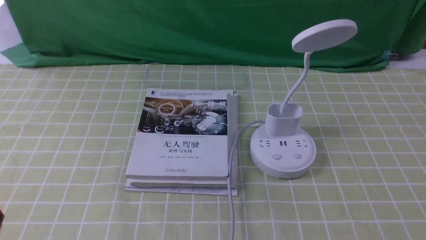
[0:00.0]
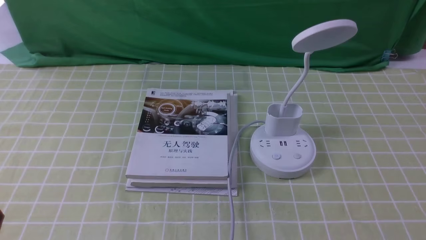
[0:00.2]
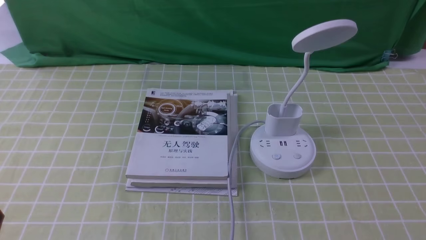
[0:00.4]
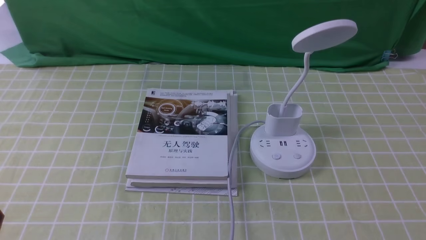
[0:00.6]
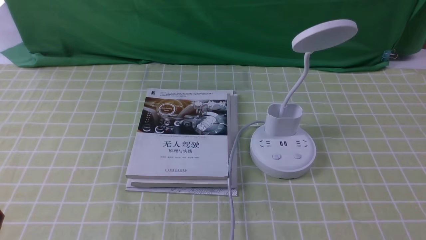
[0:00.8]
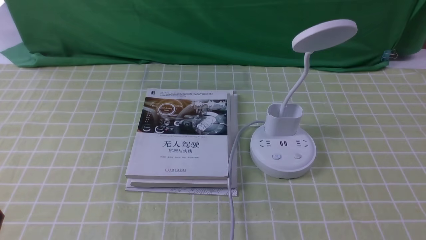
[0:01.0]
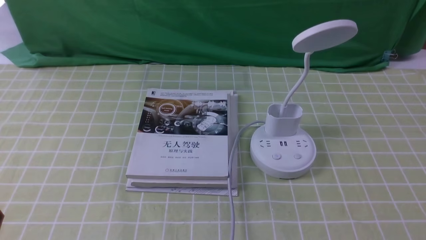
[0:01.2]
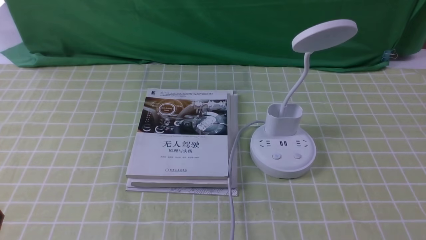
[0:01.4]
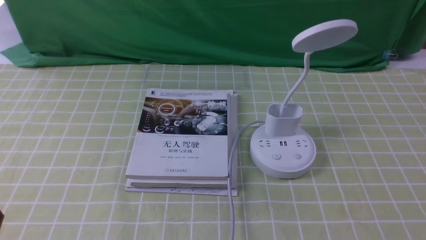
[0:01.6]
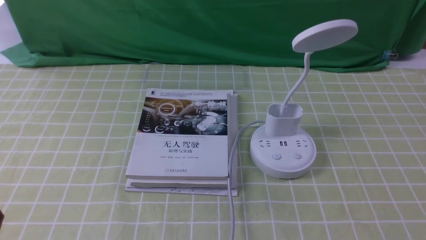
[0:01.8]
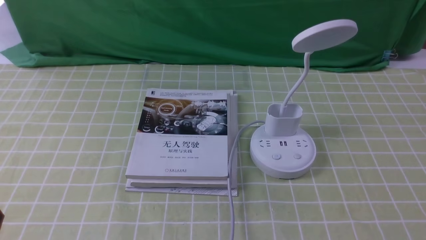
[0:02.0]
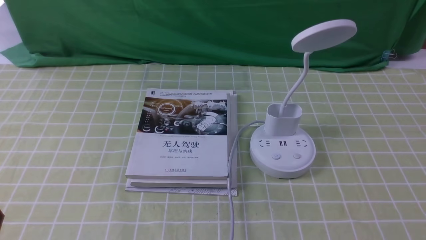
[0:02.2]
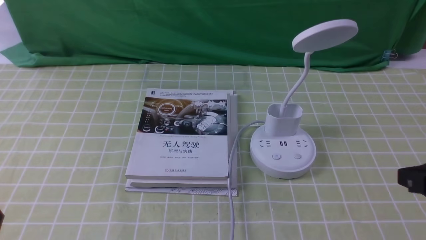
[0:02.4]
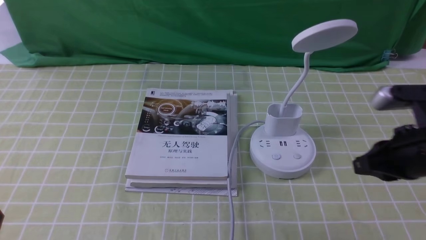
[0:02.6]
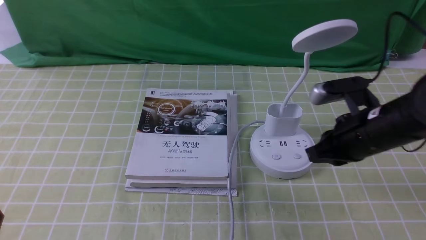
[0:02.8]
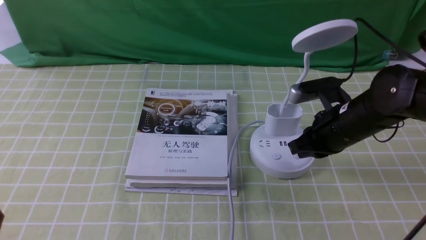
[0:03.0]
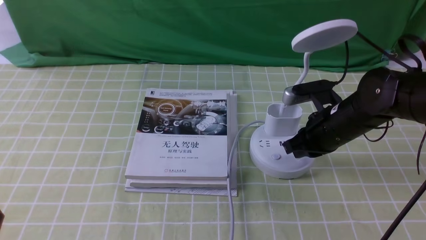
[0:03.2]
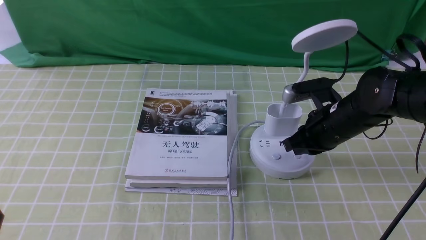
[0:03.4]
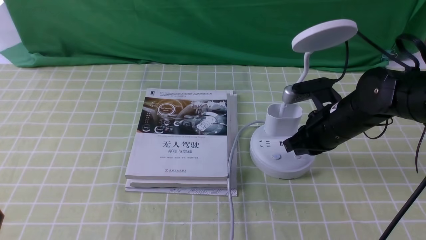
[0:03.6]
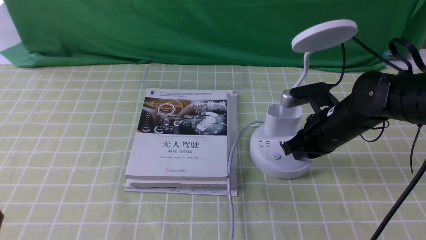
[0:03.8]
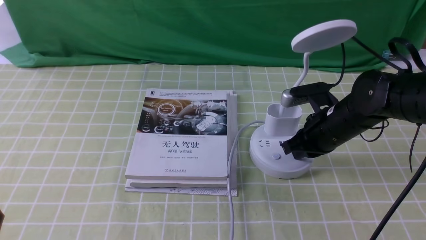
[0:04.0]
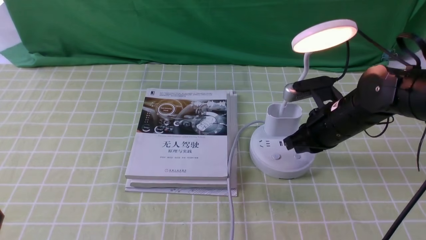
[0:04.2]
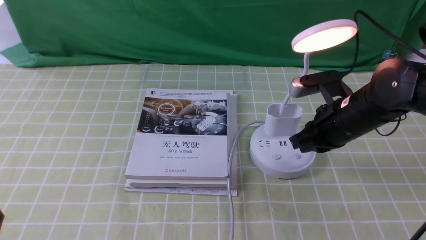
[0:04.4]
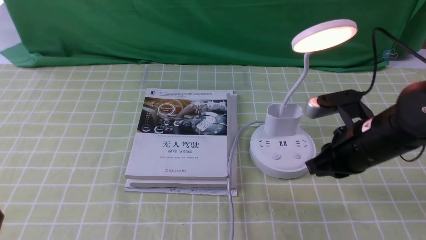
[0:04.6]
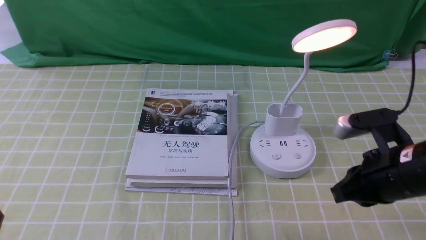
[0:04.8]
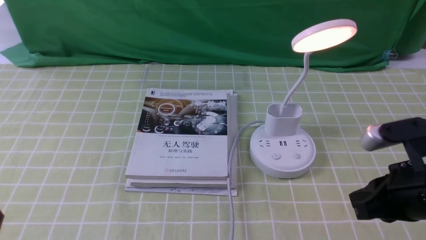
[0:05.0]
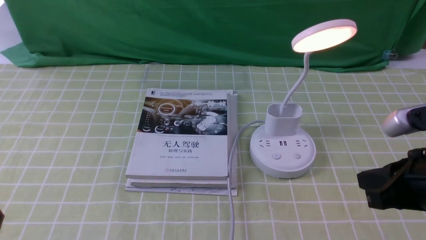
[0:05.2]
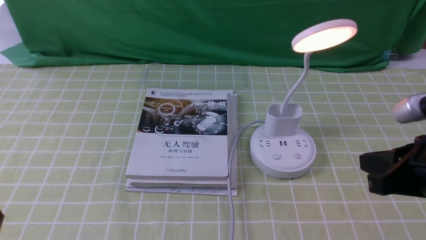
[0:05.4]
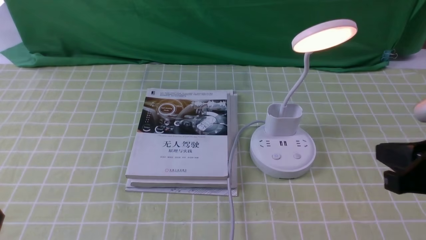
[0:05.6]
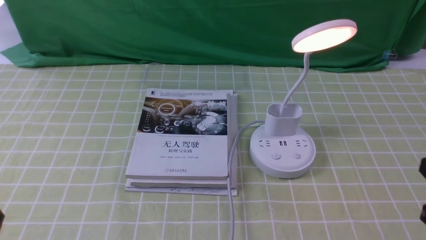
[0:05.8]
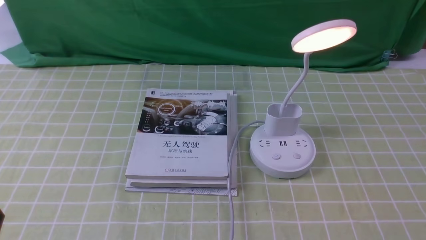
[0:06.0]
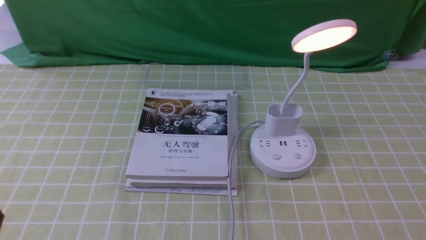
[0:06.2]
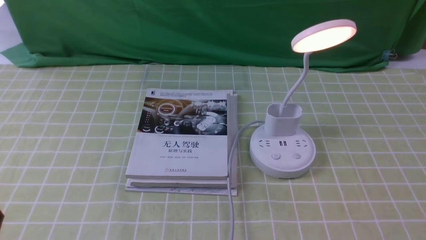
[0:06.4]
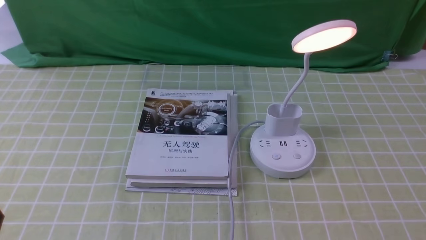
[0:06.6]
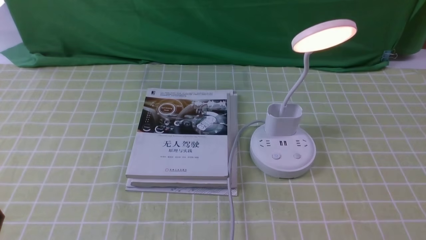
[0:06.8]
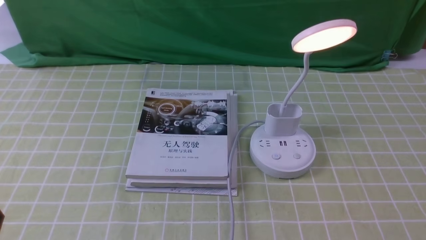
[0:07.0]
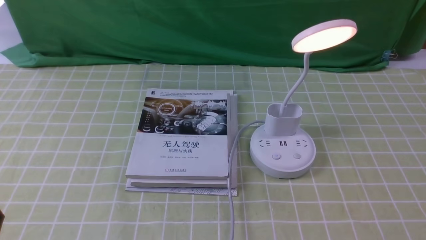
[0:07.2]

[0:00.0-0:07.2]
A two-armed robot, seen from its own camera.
Step, 0:00.0 to 0:04.4: use the right arm to press the button switch on the lamp holder.
0:01.4 to 0:02.8: The right gripper shifts roughly 25 cm forward and to the left, and closes up.
0:04.4 to 0:05.8: The right gripper heads backward and to the right, covering approximately 20 cm.

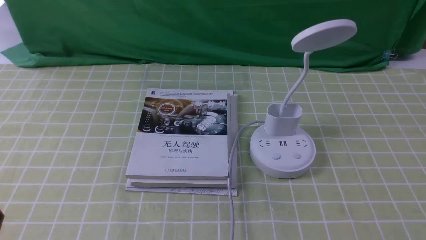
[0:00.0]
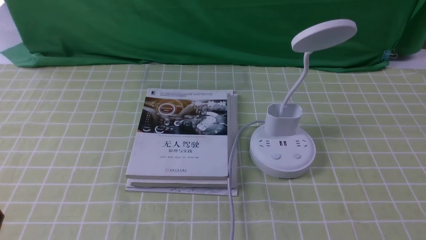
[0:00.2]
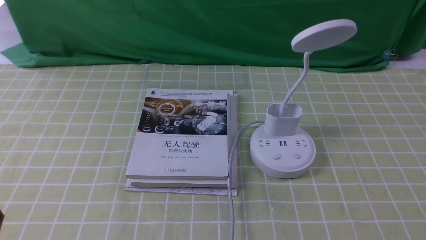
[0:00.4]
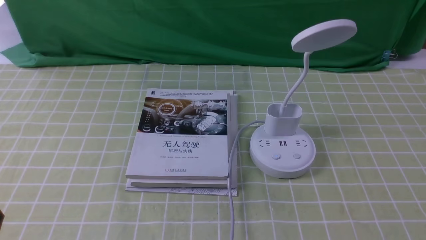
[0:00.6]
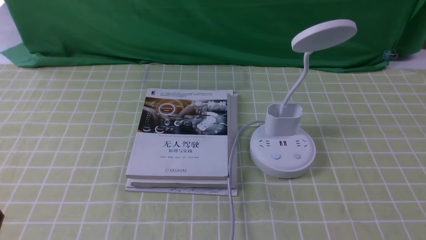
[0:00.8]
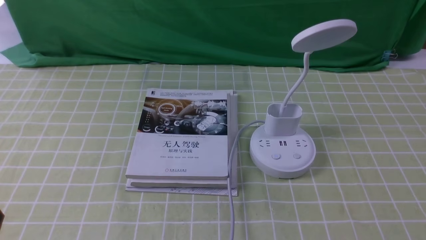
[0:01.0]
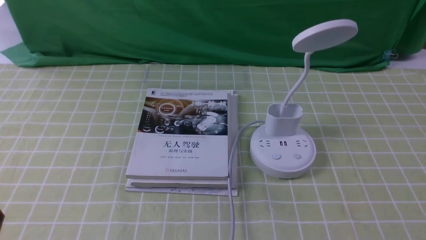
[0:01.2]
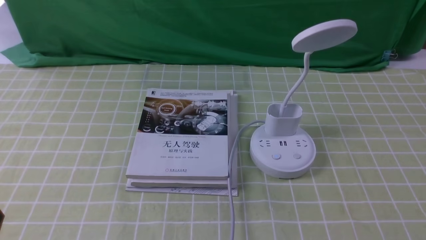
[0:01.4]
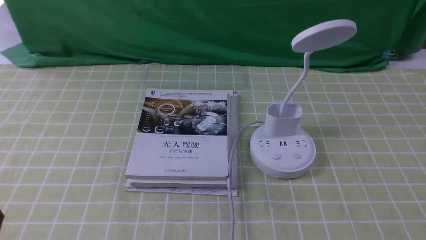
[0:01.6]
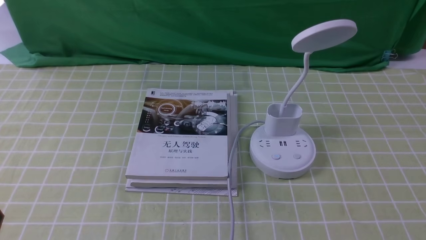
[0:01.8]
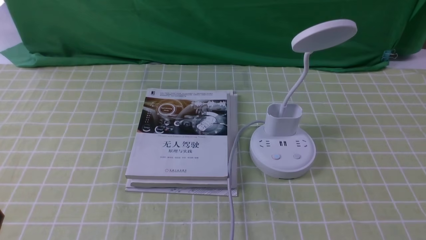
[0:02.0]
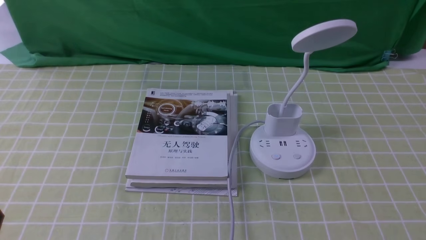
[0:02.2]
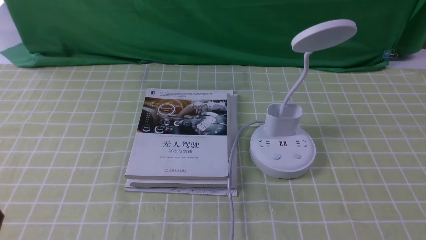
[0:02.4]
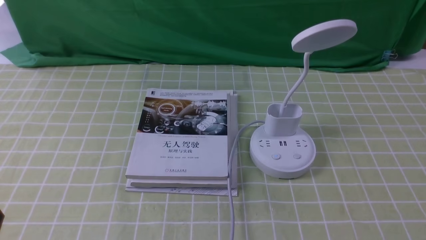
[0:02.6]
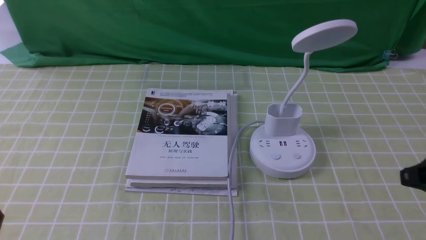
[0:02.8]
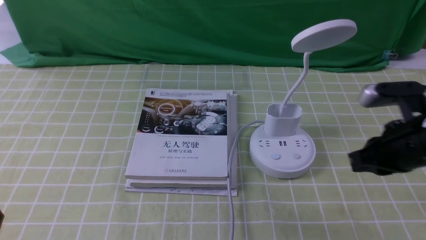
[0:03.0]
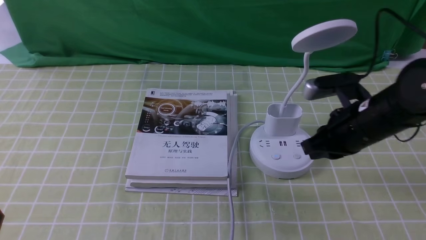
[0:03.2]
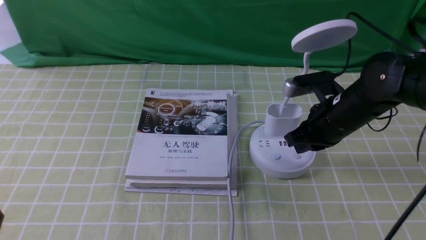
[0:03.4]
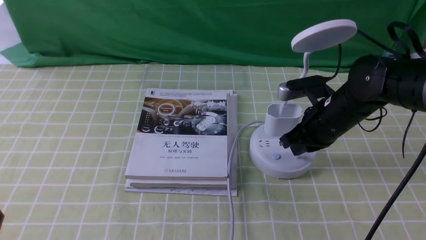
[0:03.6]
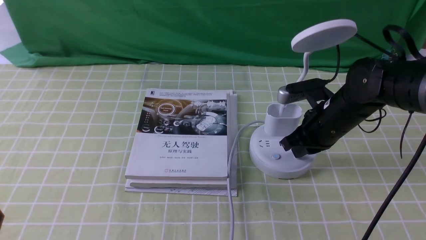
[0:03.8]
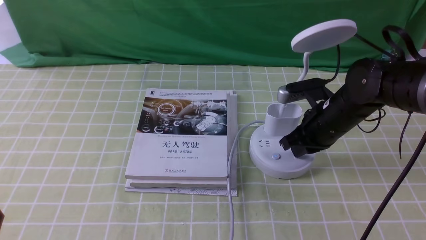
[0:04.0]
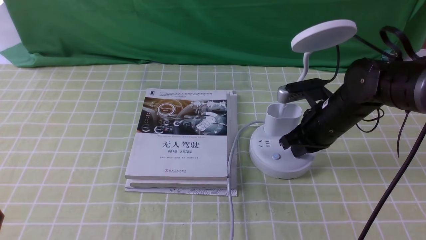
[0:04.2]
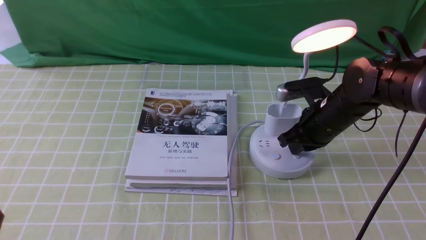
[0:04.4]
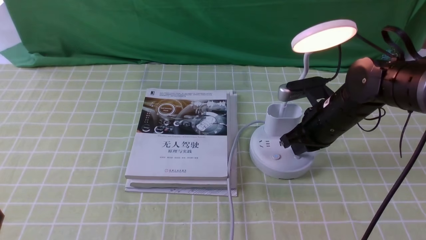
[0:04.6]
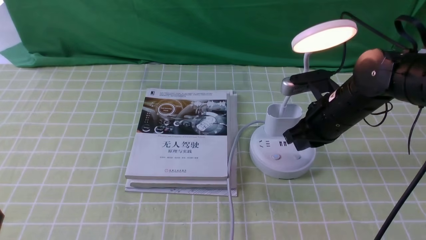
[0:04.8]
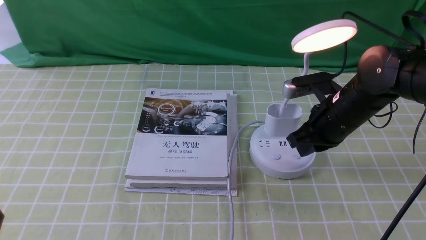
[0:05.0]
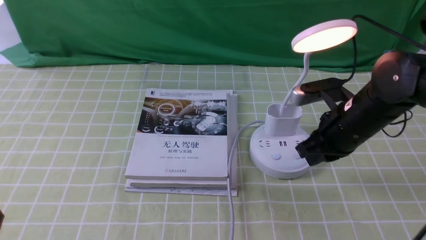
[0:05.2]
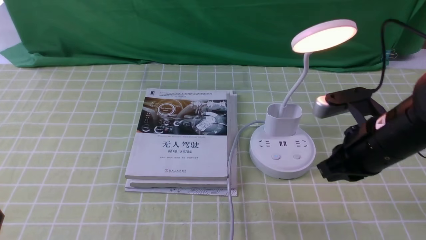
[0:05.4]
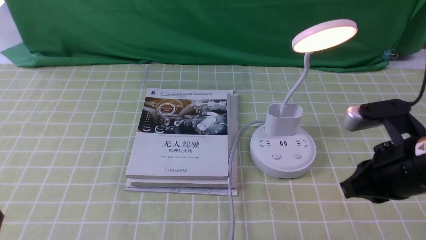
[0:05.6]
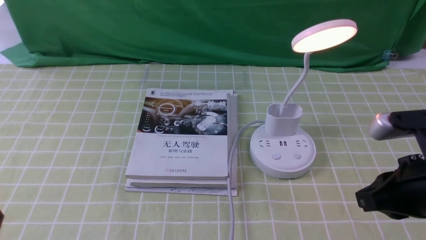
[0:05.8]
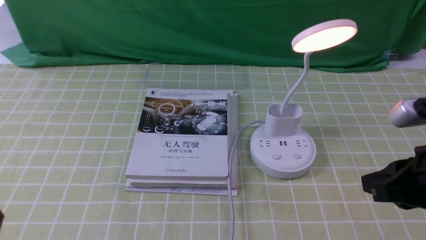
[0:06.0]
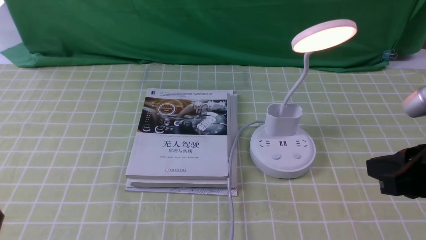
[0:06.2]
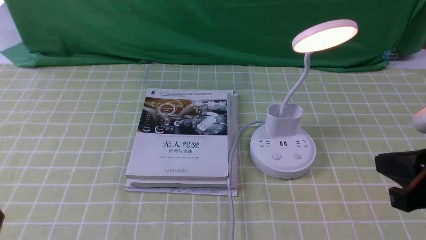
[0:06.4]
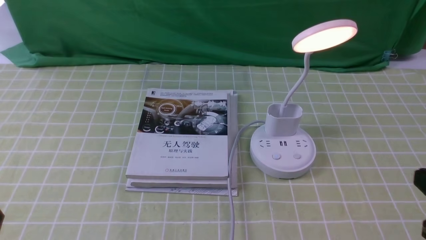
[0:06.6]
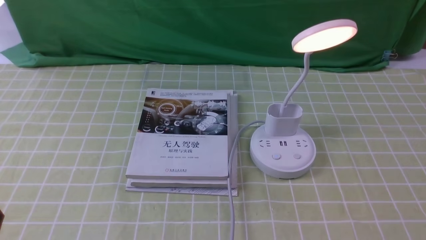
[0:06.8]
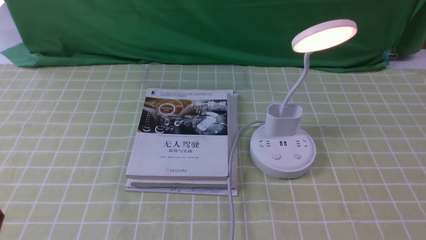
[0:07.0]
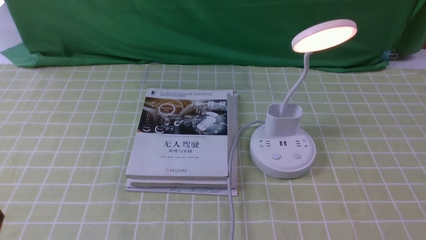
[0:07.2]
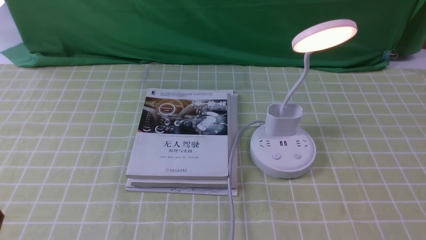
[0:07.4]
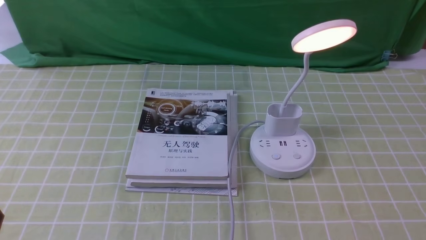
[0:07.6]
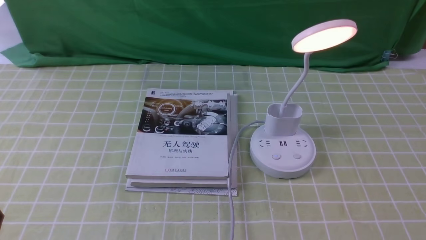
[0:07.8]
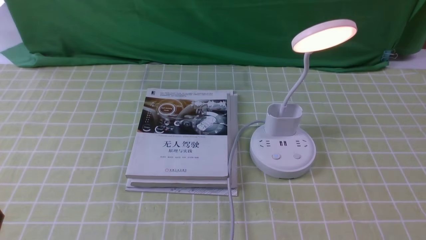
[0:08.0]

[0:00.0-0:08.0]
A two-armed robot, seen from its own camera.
Step, 0:00.0 to 0:05.2: use the right arm to press the button switch on the lamp holder.
0:00.0 to 0:01.6: Neither gripper changes place.
0:01.6 to 0:03.2: The right gripper moves forward and to the left, approximately 25 cm, and closes up.
0:03.2 to 0:04.8: The right gripper ends up some 5 cm from where it was.
0:04.8 to 0:06.4: The right gripper shifts some 25 cm backward, to the right and upward.
0:06.4 to 0:08.0: The right gripper heads downward and backward, covering some 15 cm.
